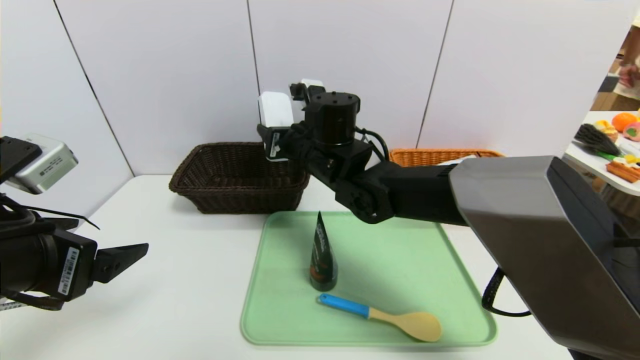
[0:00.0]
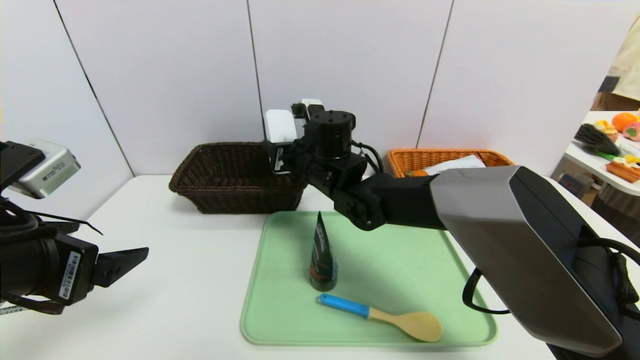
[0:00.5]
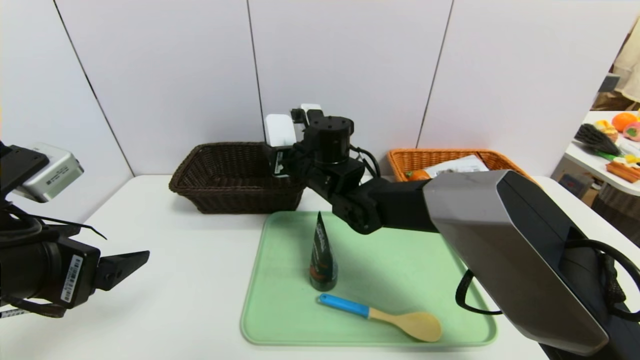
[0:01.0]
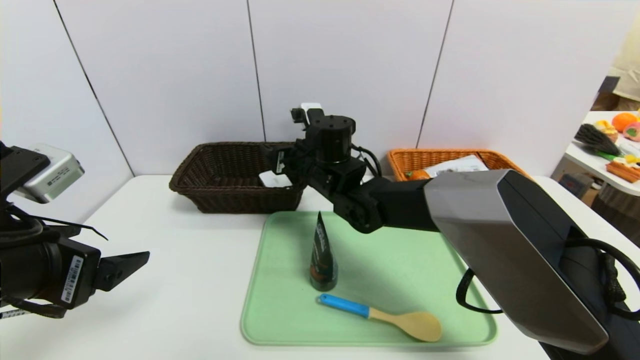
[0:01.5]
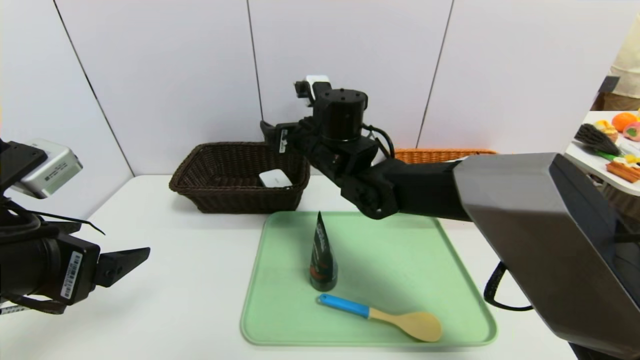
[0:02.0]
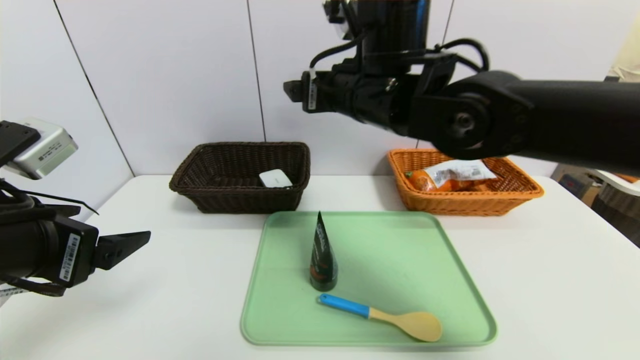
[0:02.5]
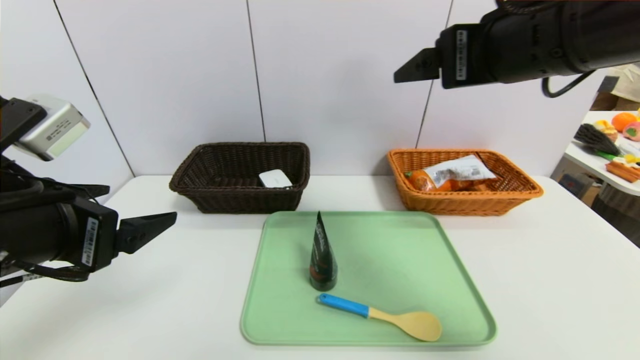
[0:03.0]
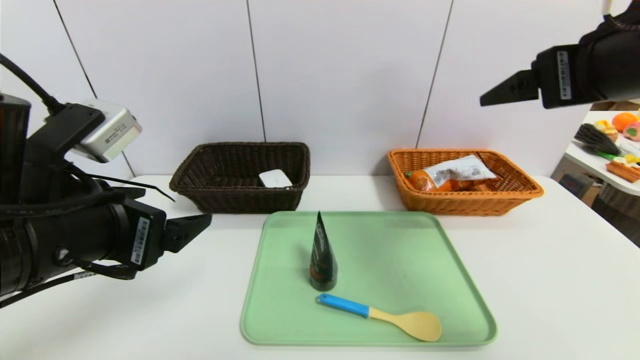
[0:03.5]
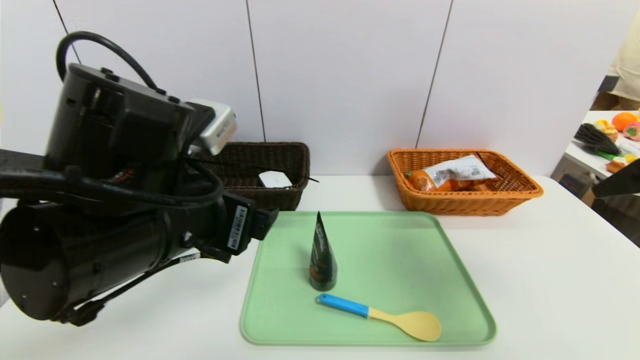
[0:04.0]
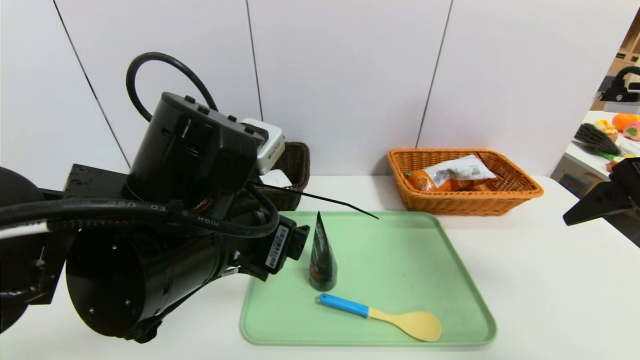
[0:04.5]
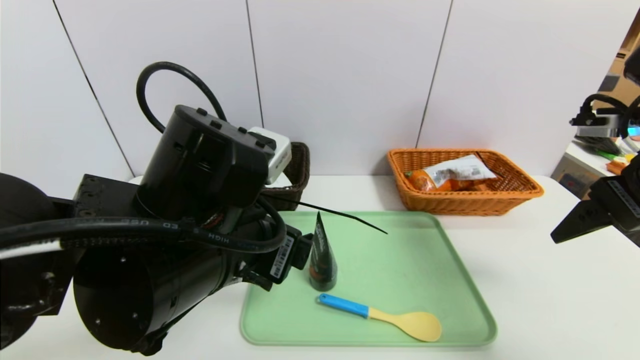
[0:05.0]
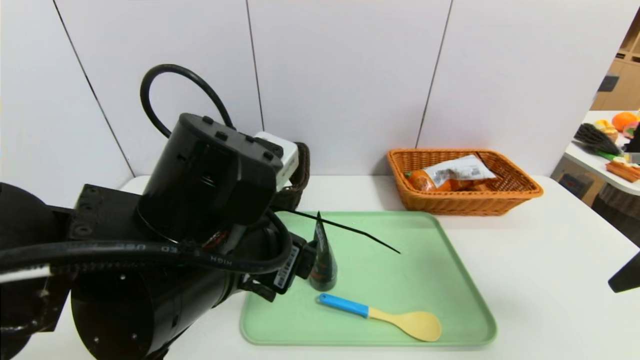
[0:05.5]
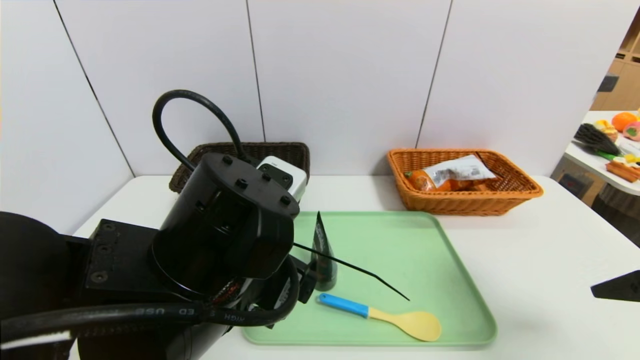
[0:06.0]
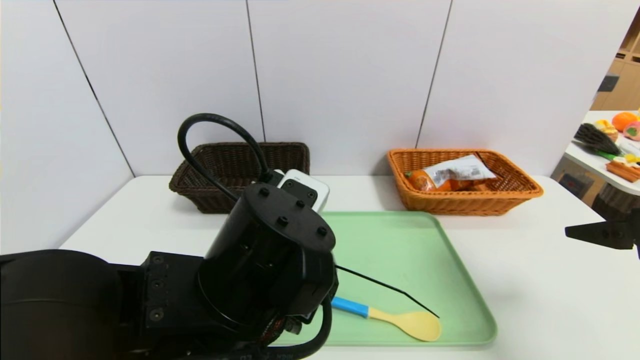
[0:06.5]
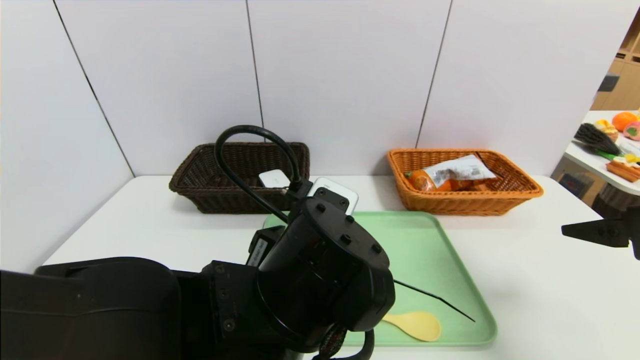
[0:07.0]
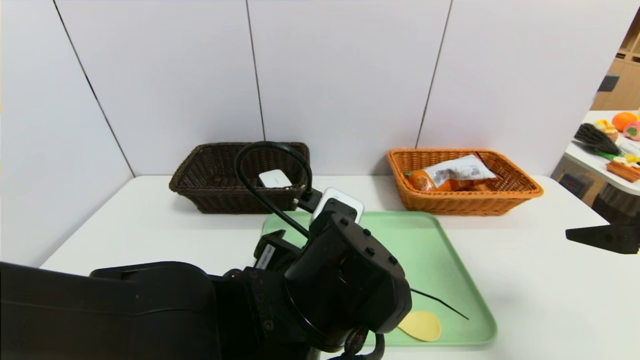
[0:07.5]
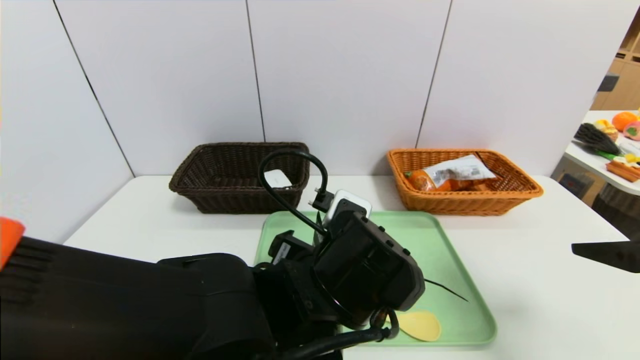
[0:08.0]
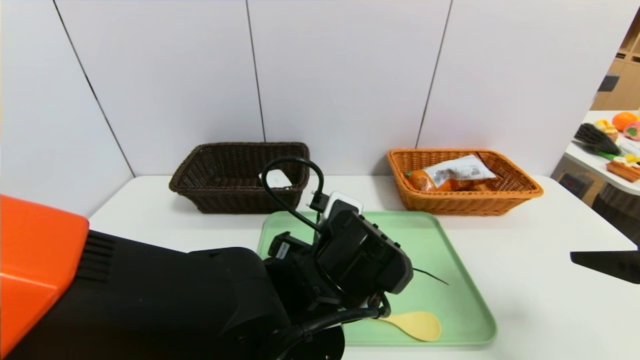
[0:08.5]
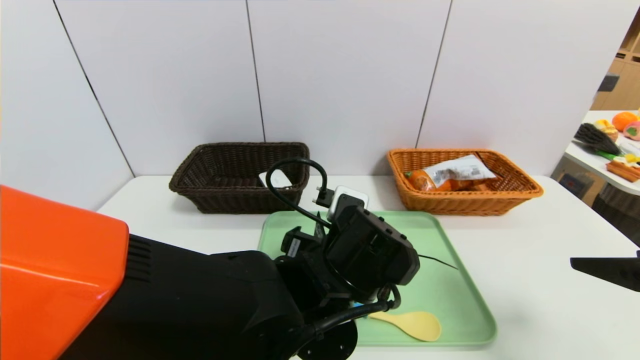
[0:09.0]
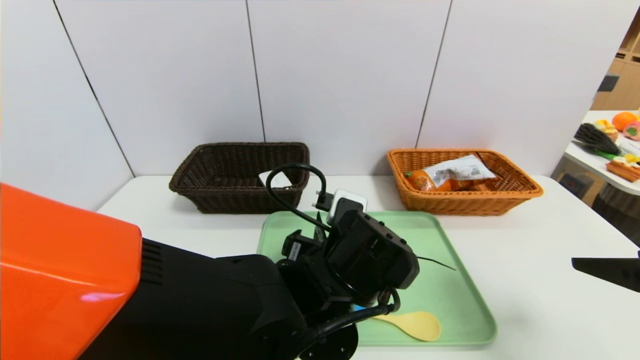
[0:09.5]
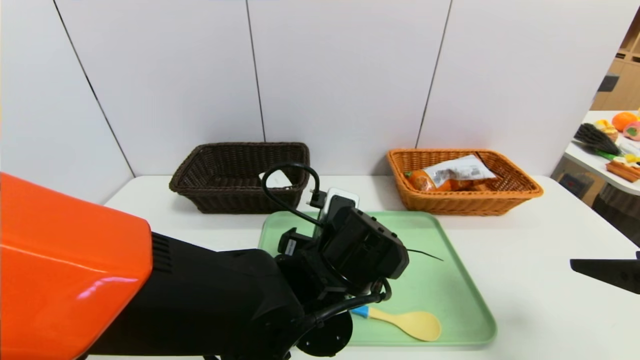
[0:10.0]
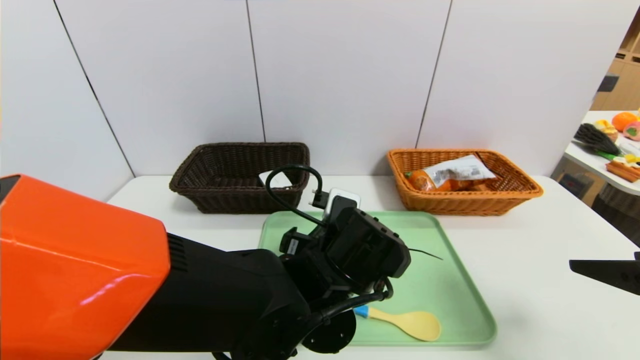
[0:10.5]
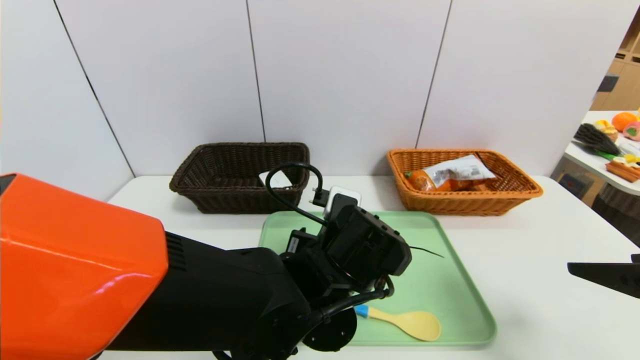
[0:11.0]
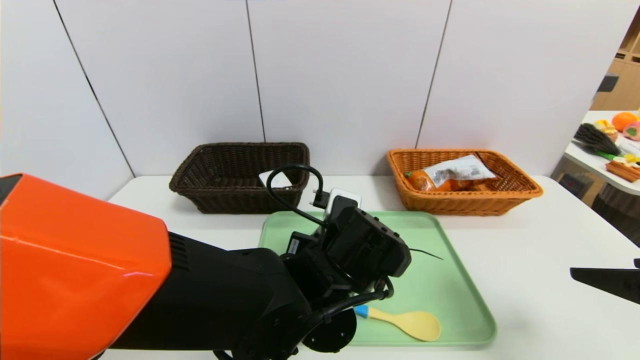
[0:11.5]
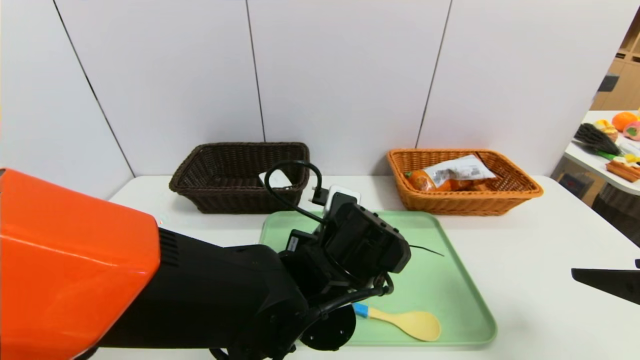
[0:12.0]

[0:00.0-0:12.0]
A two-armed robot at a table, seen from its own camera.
Task of the whole recording: place the food in the right basket with the right gripper, and place the non food items in the left basket with the left gripper.
0:00.0 to 0:02.0: The right gripper opens its fingers.
0:02.0 to 0:04.0: The right gripper moves to the right, backward and upward, about 40 cm; the left gripper travels to the right by roughly 15 cm.
0:04.0 to 0:06.0: The right gripper shifts approximately 10 cm downward. The left gripper ends up roughly 5 cm from where it was.
0:06.0 to 0:08.0: The left gripper heads to the right and downward, covering roughly 10 cm.
0:08.0 to 0:10.0: The left gripper ends up roughly 5 cm from where it was.
0:10.0 to 0:12.0: The left gripper closes its fingers.

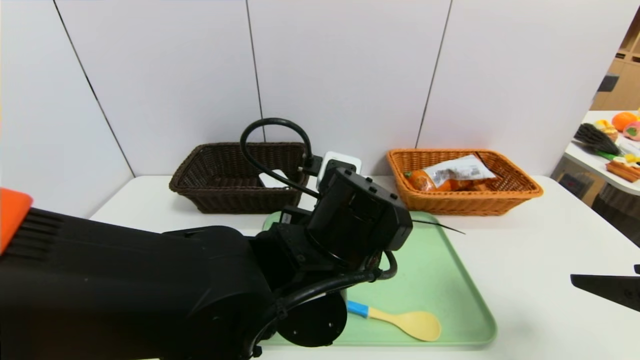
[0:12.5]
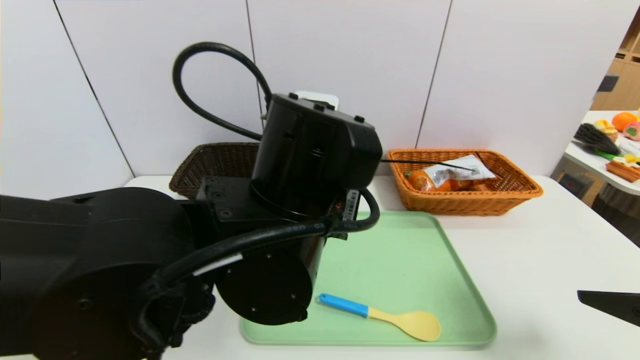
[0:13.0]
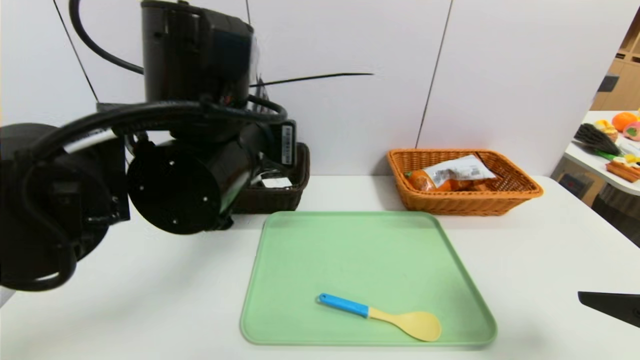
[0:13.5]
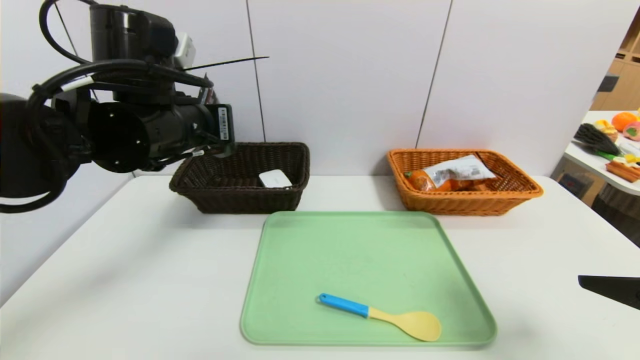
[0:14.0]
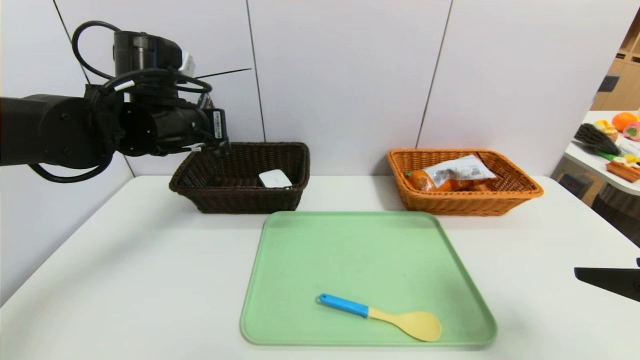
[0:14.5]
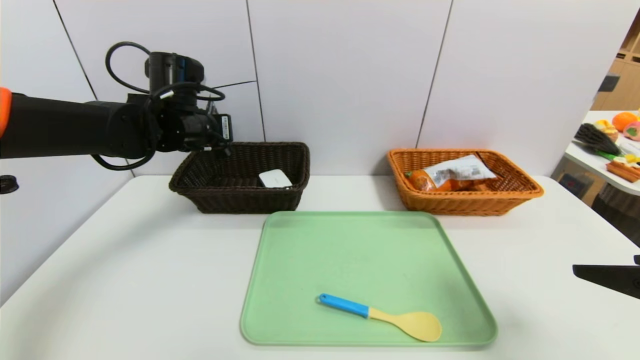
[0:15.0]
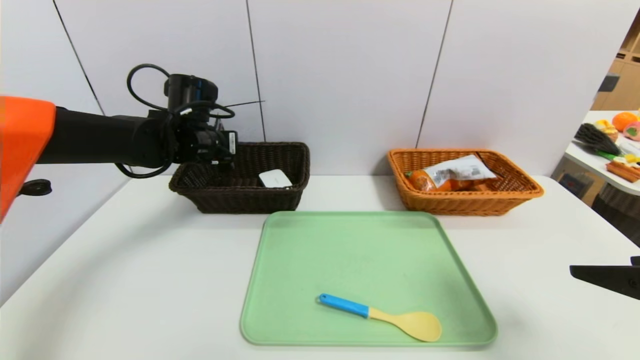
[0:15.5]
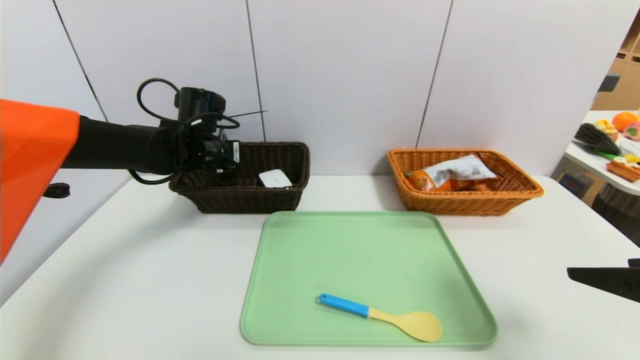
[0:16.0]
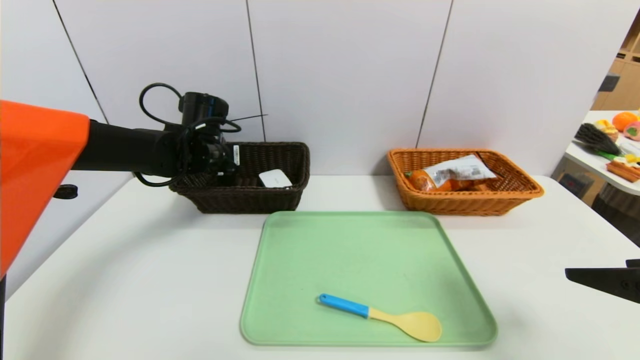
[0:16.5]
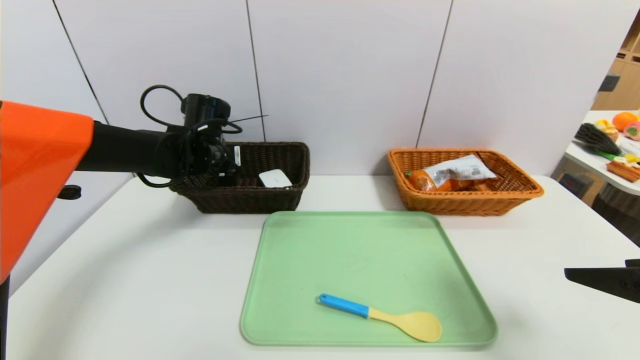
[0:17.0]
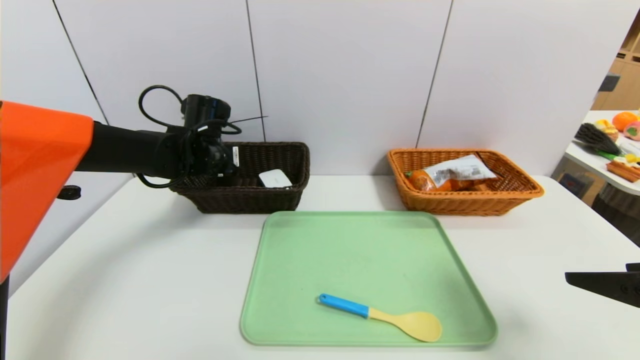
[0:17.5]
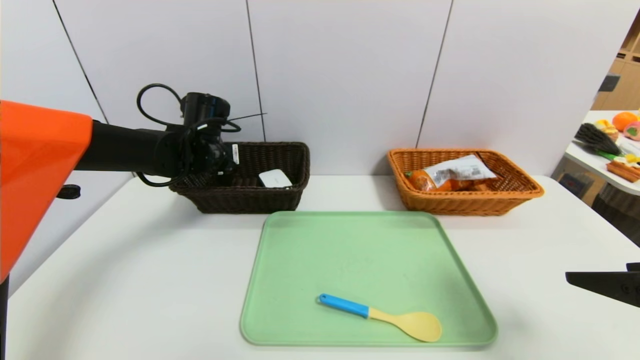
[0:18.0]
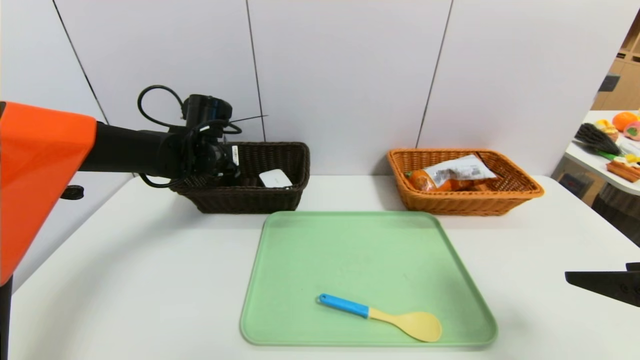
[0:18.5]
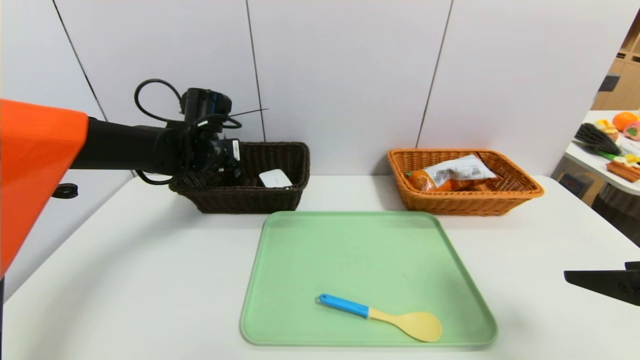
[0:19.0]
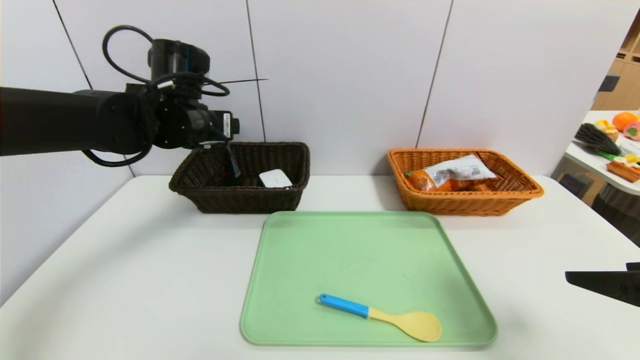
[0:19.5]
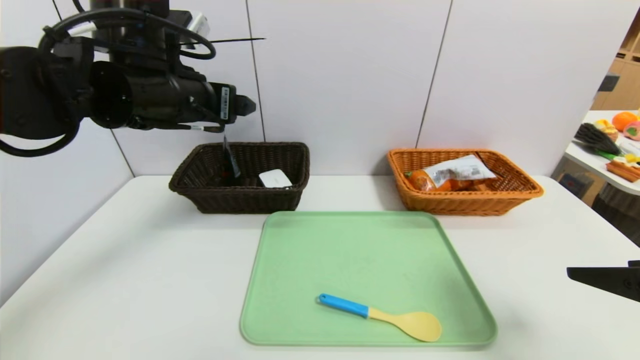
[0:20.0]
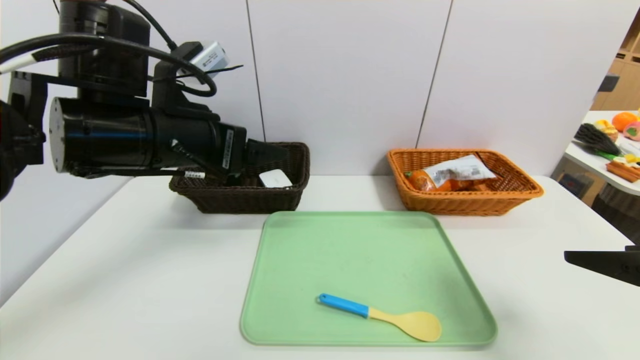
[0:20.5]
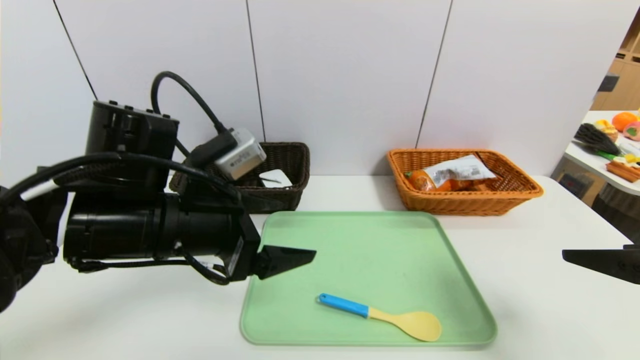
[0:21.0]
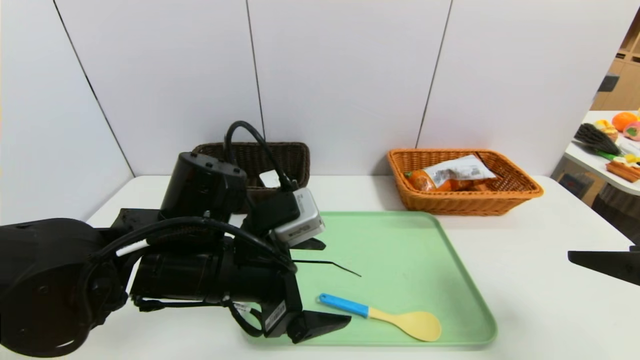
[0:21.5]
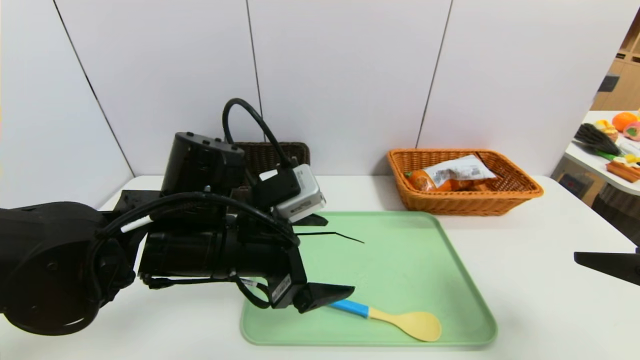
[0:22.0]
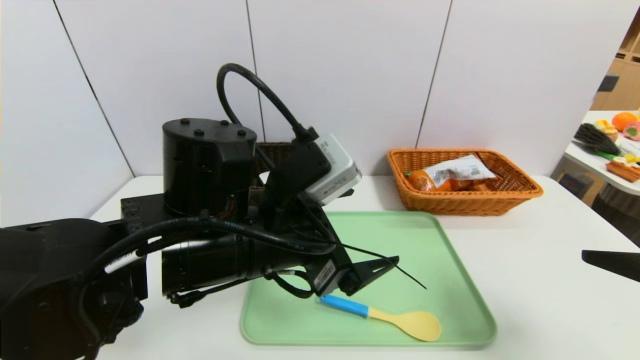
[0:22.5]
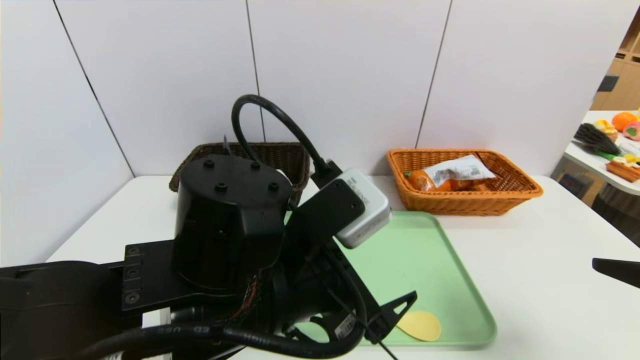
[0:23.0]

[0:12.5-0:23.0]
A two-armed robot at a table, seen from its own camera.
Task of the whole recording: place the food in the right basket with the right gripper, and place the non food items in the left basket with the left gripper.
Step, 0:12.5 to 0:19.5: Grasp the soft cleanser and put it in the left basket.
0:12.5 to 0:14.5: The left gripper moves to the left, forward and upward, some 25 cm.
0:14.5 to 0:16.5: The left gripper moves forward and downward, approximately 10 cm.
0:16.5 to 0:19.0: The left gripper opens up.
0:19.0 to 0:21.0: The left gripper moves backward, roughly 20 cm.
0:21.0 to 0:23.0: The left gripper shifts roughly 10 cm to the right and backward.
